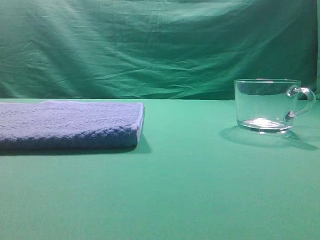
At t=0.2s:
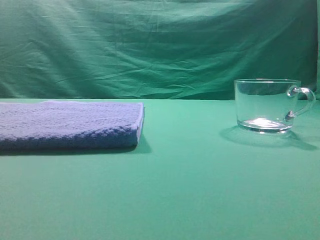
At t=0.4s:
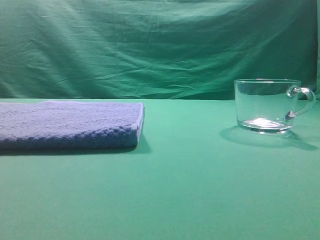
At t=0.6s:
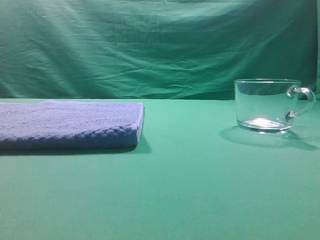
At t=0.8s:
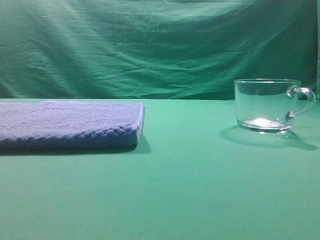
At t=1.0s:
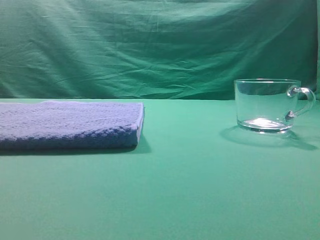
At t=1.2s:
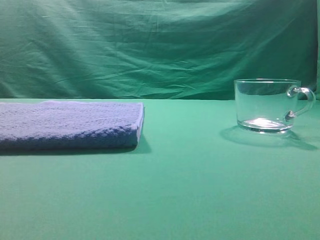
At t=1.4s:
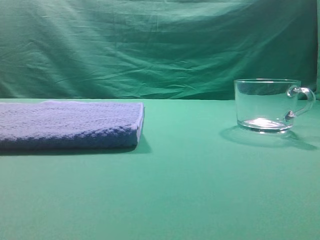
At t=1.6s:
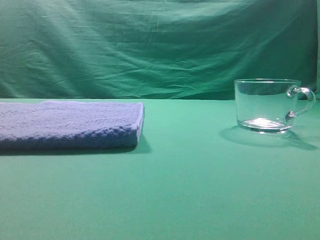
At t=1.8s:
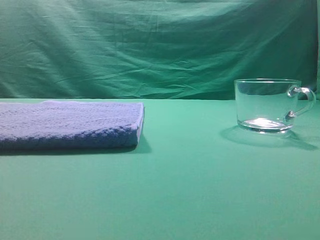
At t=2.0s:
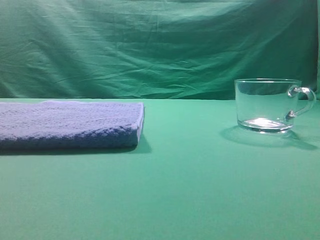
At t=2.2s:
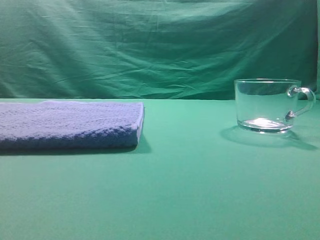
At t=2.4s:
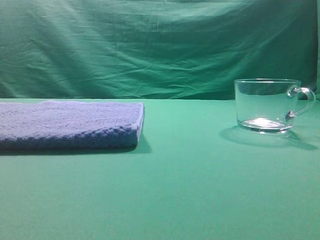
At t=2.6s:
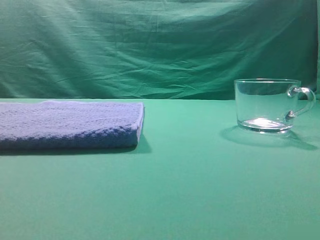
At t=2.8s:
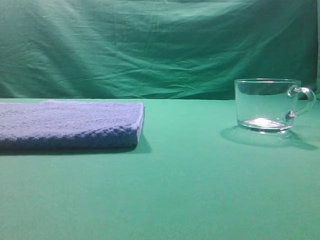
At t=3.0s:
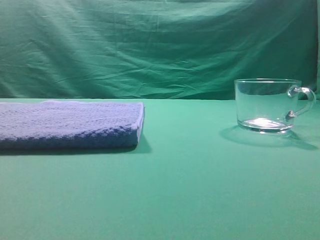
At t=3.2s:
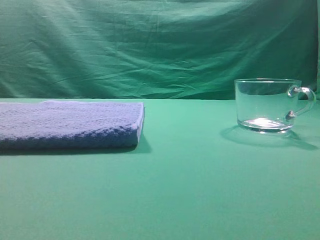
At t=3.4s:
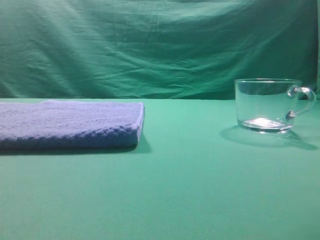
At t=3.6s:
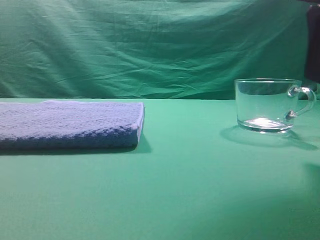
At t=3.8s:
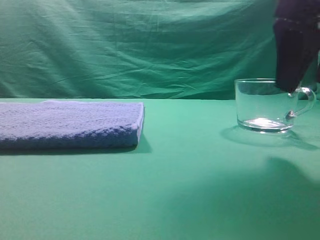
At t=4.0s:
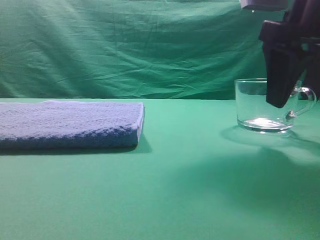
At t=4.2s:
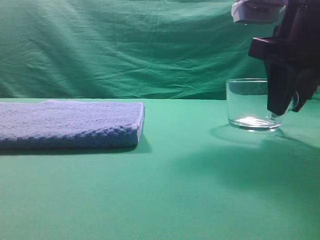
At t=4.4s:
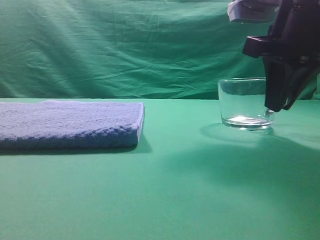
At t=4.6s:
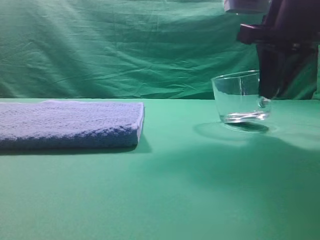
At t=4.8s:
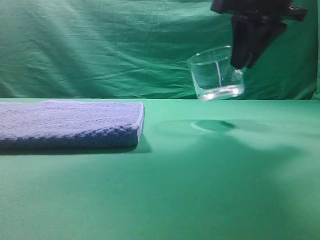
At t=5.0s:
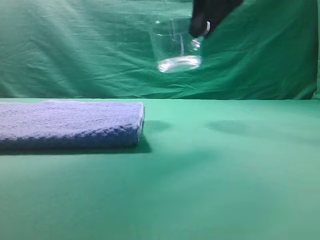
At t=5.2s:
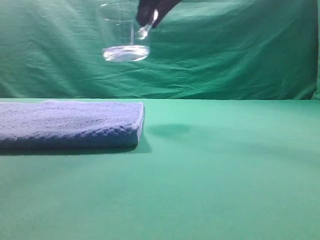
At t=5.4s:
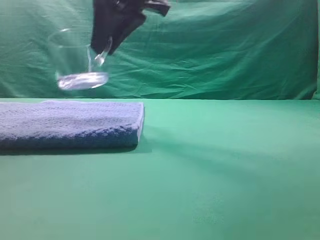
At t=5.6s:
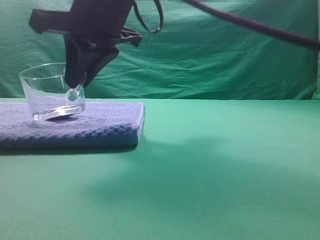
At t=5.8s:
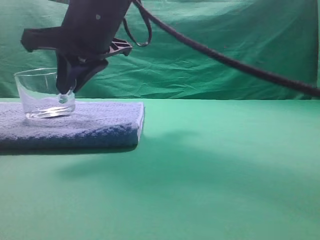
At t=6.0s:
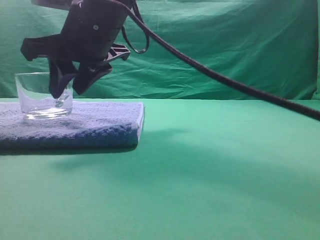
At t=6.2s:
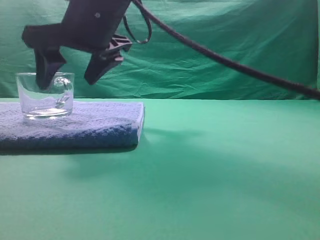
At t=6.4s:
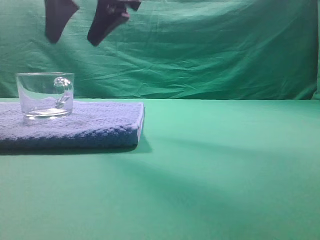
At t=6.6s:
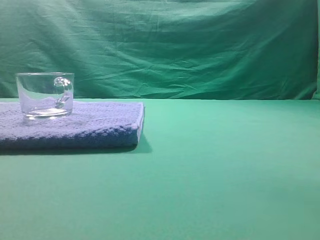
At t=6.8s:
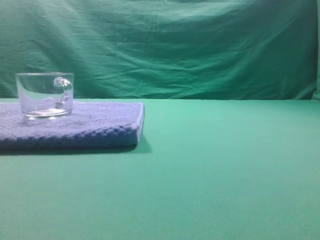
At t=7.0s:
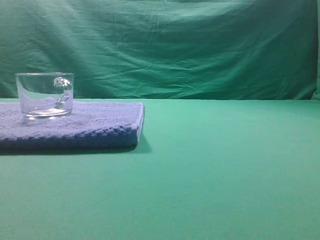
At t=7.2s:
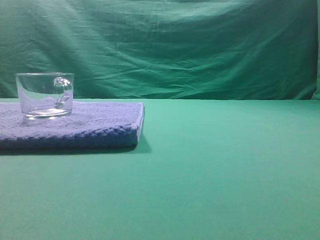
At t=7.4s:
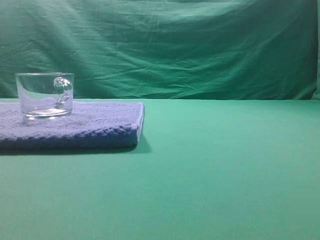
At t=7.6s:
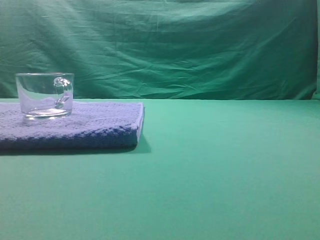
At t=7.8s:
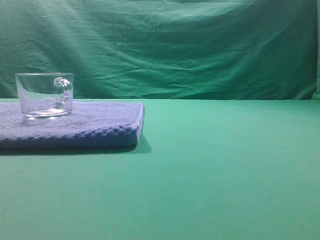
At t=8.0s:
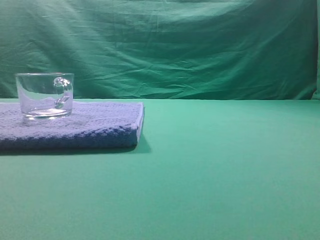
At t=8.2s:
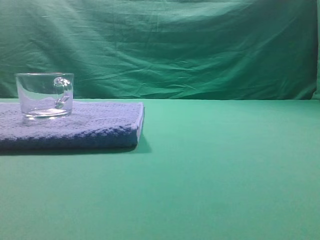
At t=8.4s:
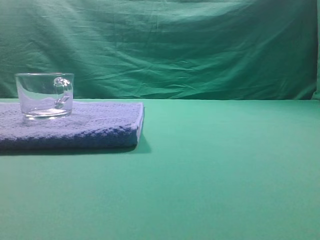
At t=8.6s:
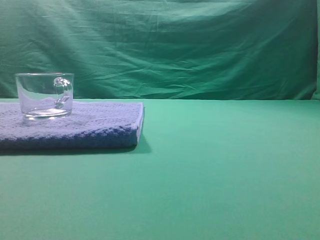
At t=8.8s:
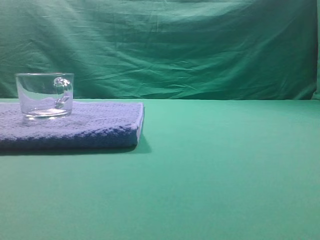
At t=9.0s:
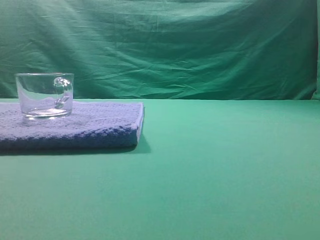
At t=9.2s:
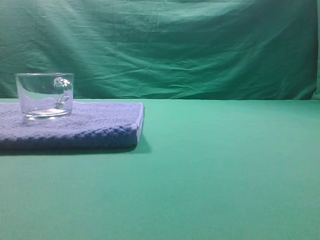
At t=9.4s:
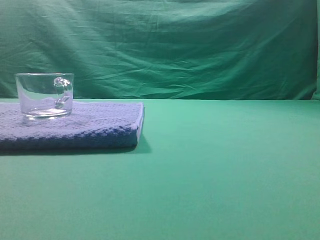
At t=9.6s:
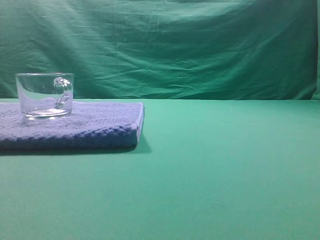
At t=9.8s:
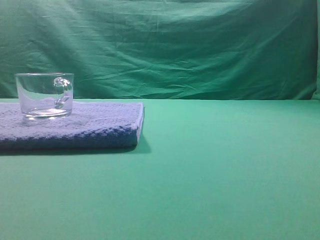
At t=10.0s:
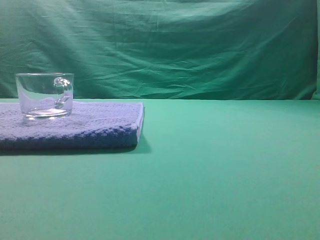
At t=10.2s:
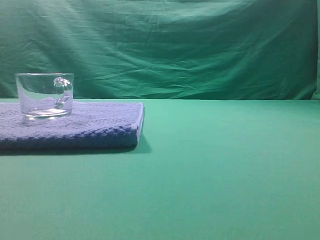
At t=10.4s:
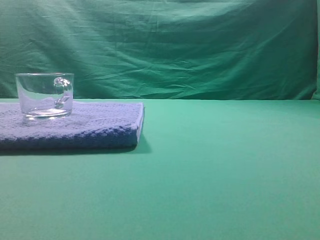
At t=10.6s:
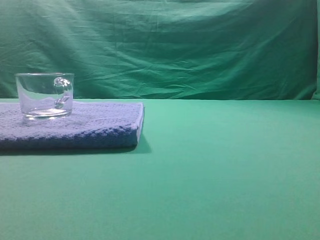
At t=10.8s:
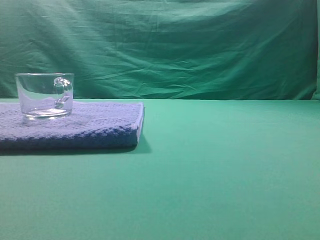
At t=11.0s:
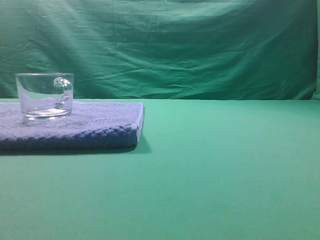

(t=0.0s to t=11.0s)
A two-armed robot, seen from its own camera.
Task of the whole recording: grasp the transparent glass cup and place it within the blue towel.
Step, t=0.0s - t=4.6s: Grasp the transparent glass cup.
Step, t=5.0s - t=6.2s: Place the glass cup on the blue zone.

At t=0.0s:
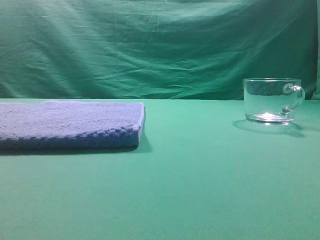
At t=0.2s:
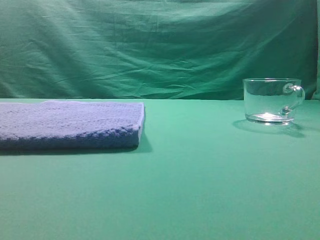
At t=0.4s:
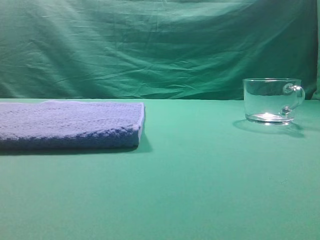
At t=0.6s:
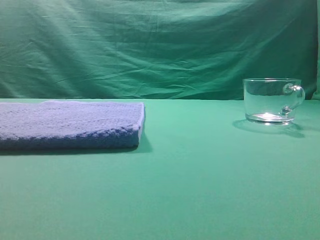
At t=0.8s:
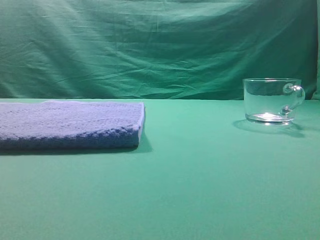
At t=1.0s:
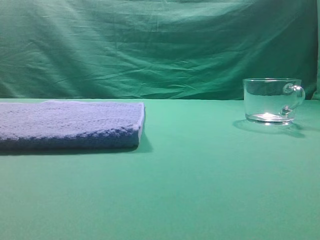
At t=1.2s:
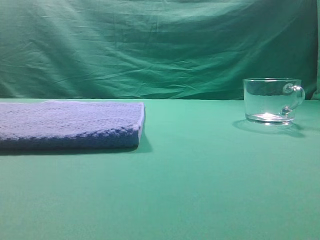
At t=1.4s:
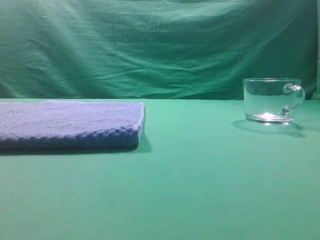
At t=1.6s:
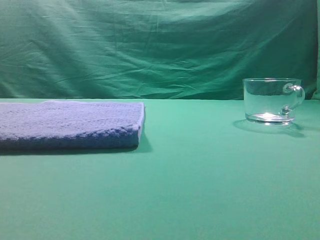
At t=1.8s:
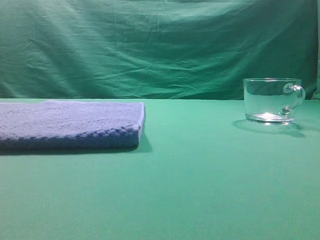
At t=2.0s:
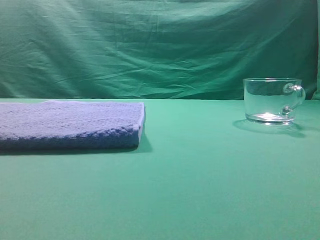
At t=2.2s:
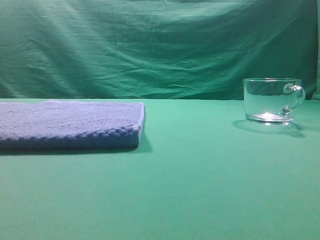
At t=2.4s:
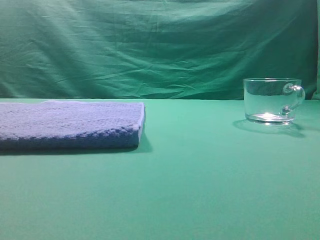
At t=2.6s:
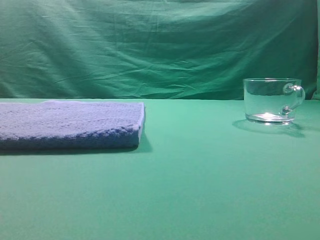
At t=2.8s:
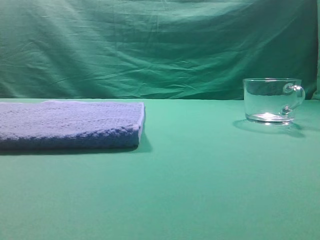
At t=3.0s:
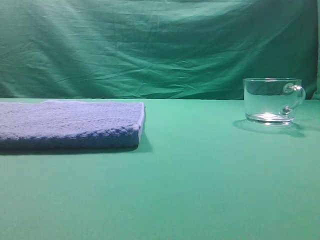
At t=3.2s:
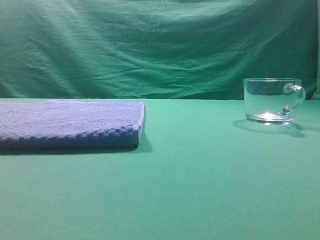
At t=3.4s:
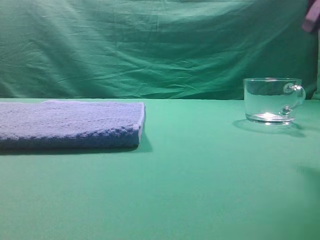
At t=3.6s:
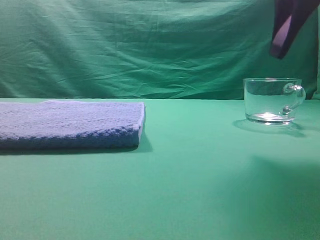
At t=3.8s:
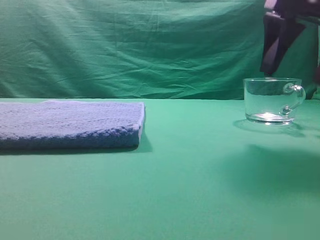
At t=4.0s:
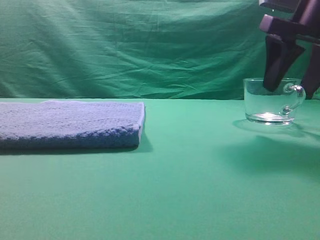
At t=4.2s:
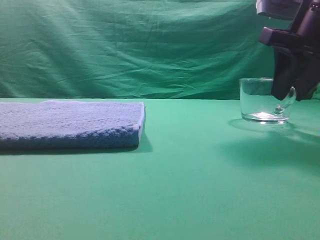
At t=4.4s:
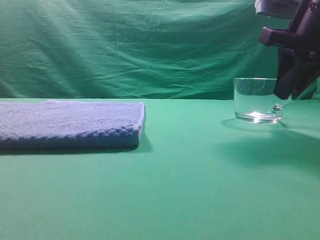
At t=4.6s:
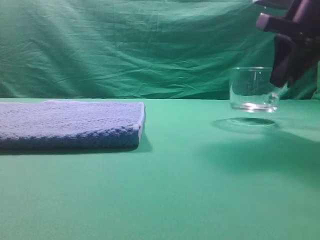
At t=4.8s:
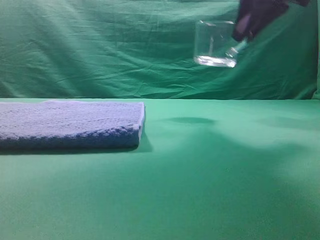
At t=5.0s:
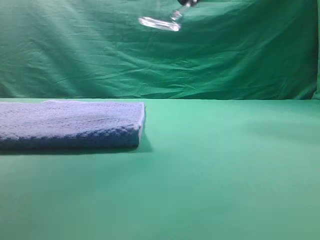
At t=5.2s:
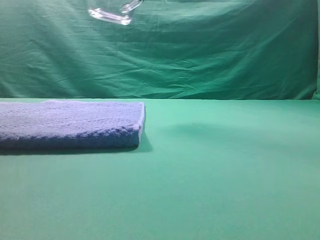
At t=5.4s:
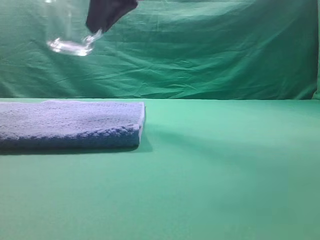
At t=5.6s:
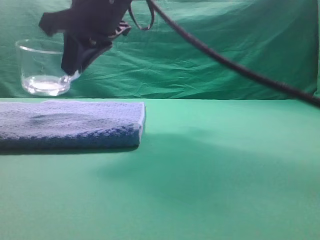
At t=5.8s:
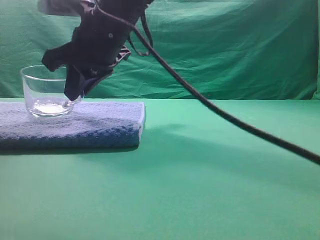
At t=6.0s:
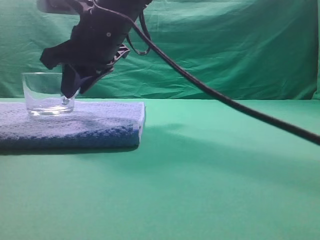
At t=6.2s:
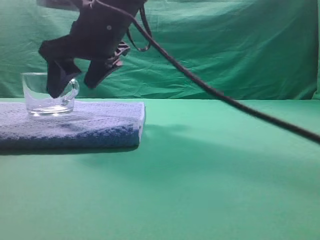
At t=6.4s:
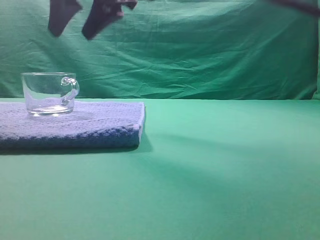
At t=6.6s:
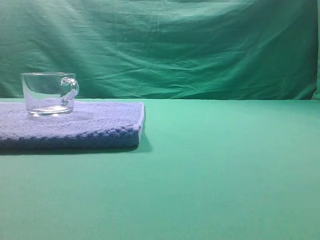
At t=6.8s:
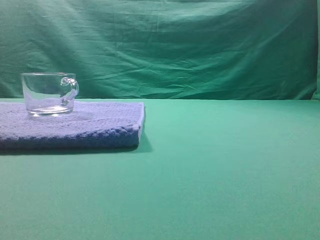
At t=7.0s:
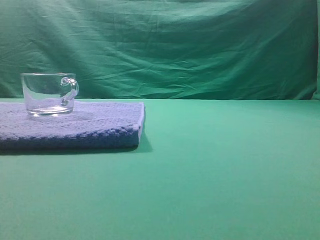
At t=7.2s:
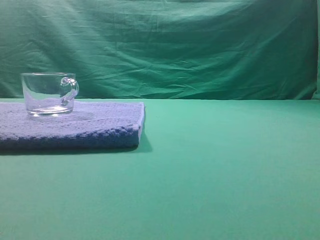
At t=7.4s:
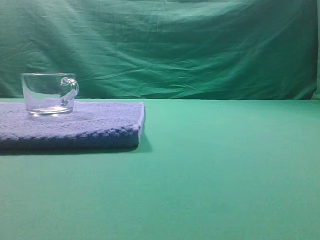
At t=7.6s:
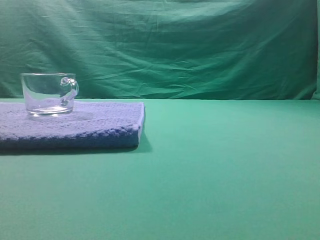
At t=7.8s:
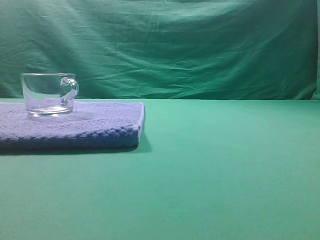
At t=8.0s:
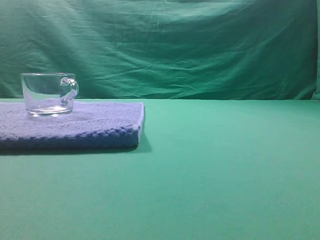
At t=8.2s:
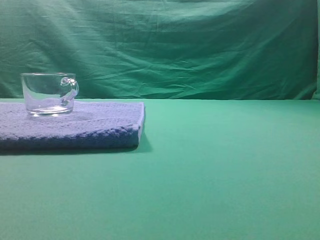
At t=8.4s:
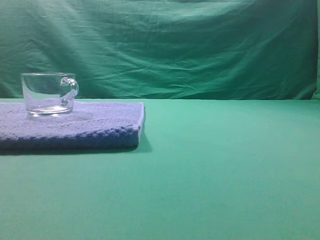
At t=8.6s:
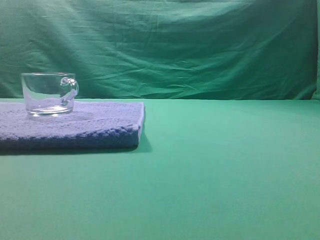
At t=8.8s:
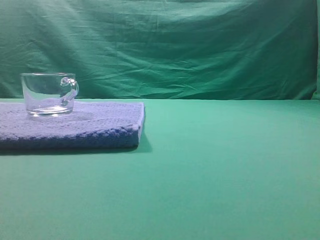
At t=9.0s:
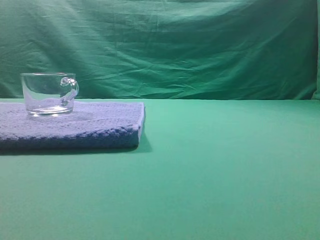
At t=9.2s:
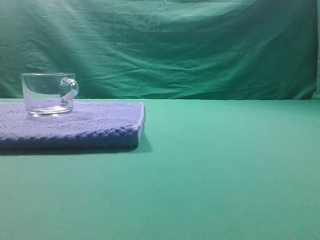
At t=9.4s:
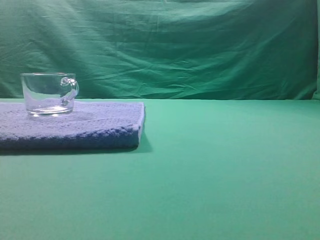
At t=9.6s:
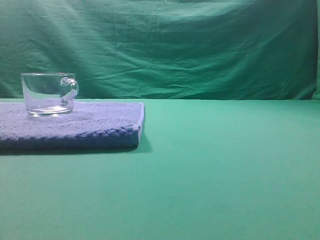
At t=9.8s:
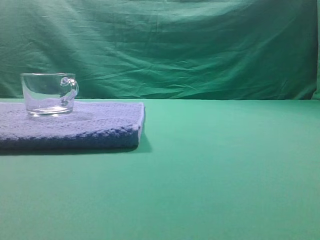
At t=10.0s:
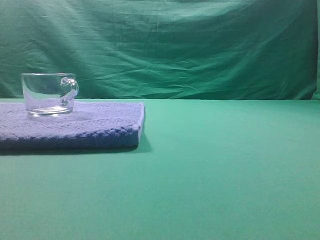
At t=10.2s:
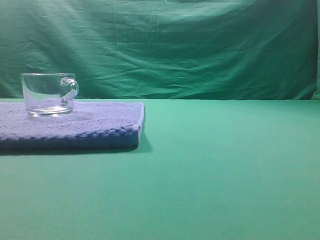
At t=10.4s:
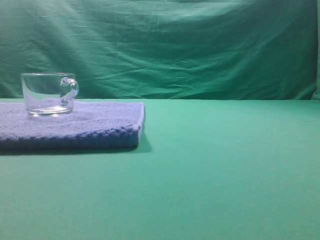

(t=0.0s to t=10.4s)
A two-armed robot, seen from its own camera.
Task of the whole recording: grasp the transparent glass cup and place it within the blue towel.
Step, t=0.0s - t=4.6s: Grasp the transparent glass cup.
Step, t=4.8s - t=6.2s: Place the glass cup on the blue zone.
